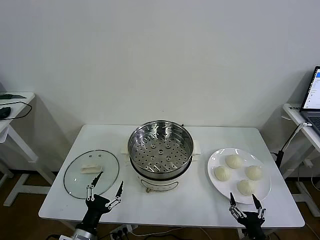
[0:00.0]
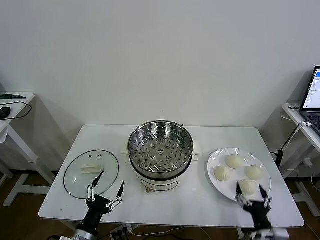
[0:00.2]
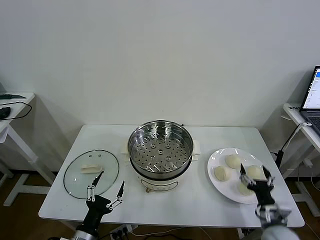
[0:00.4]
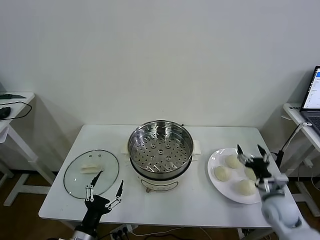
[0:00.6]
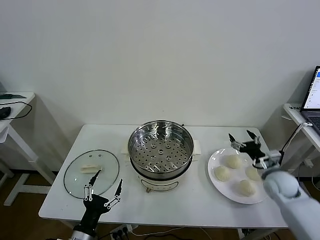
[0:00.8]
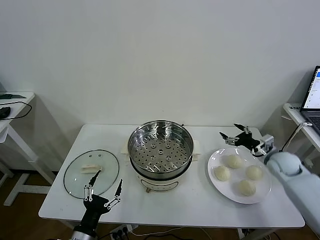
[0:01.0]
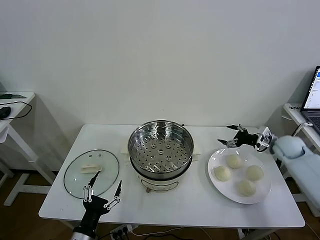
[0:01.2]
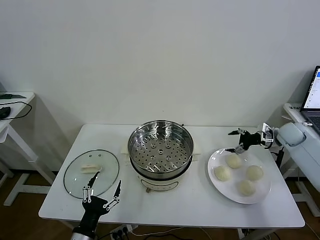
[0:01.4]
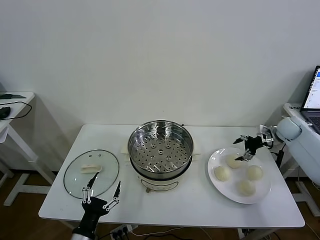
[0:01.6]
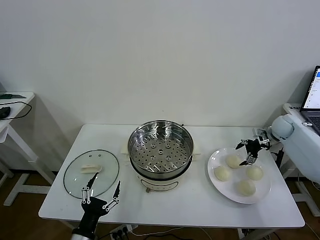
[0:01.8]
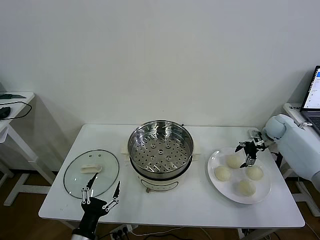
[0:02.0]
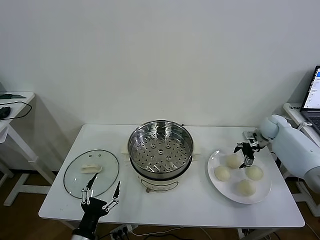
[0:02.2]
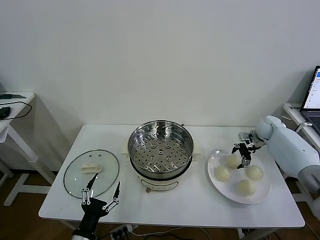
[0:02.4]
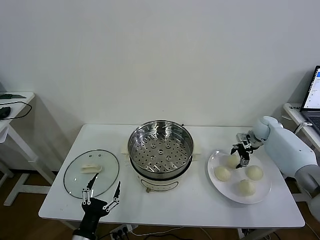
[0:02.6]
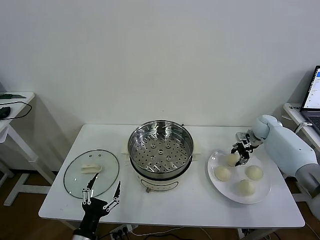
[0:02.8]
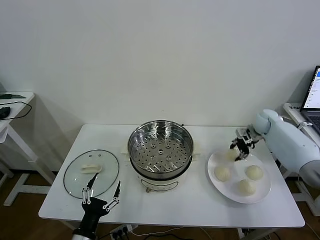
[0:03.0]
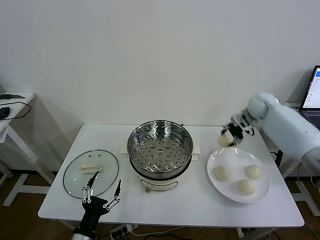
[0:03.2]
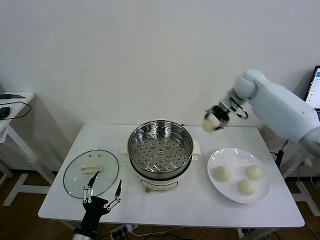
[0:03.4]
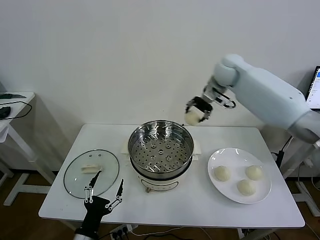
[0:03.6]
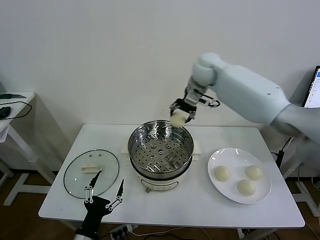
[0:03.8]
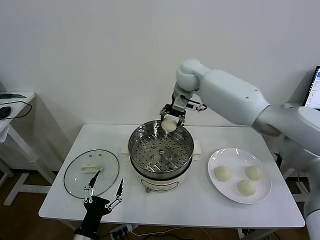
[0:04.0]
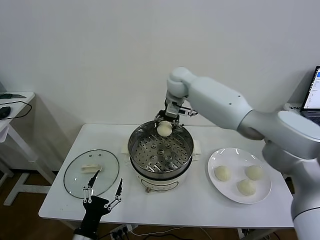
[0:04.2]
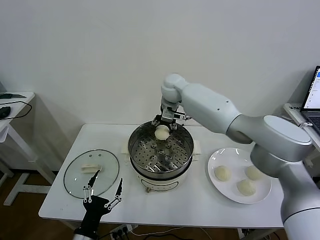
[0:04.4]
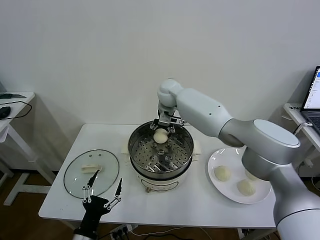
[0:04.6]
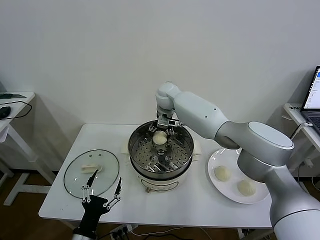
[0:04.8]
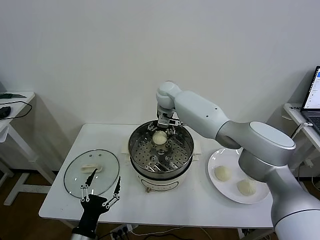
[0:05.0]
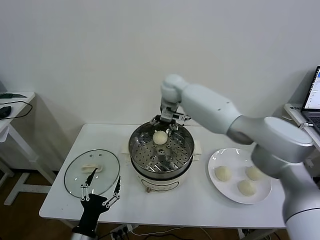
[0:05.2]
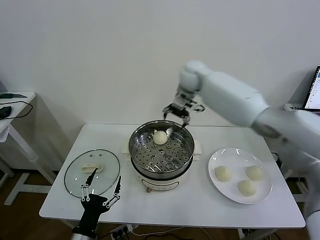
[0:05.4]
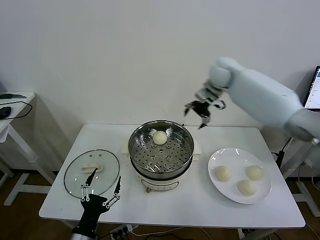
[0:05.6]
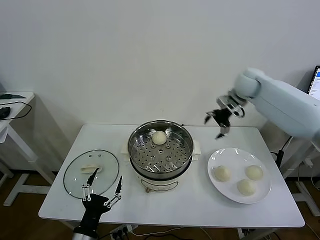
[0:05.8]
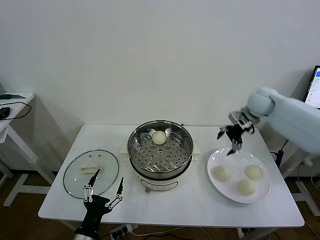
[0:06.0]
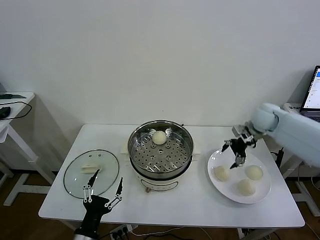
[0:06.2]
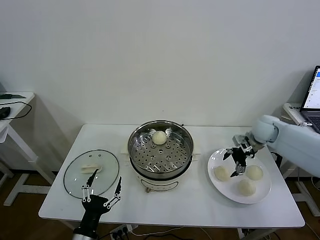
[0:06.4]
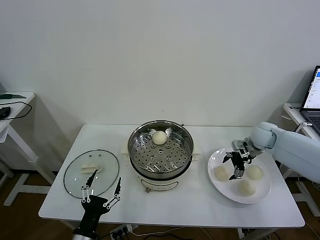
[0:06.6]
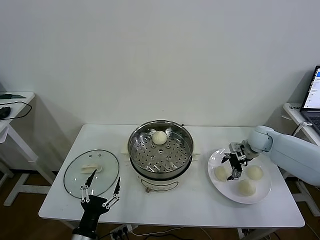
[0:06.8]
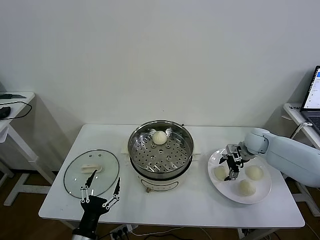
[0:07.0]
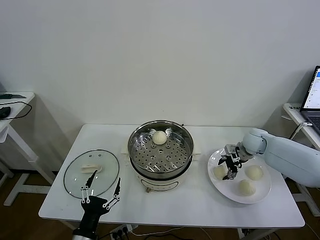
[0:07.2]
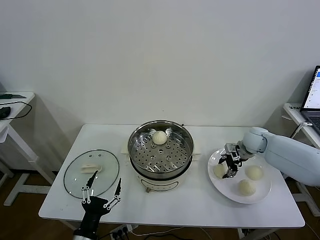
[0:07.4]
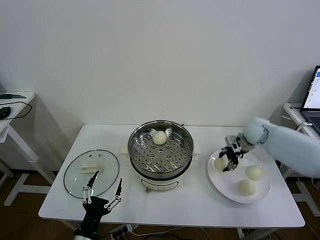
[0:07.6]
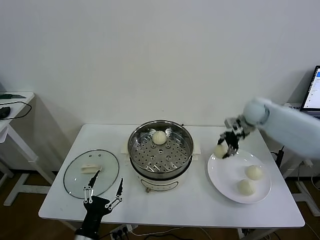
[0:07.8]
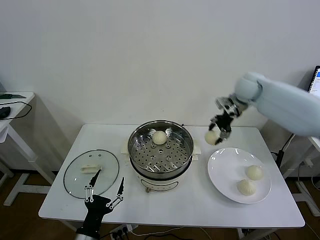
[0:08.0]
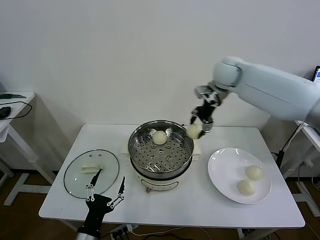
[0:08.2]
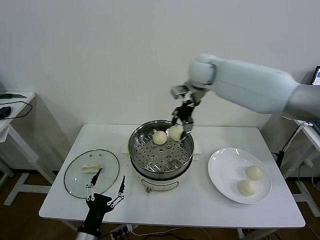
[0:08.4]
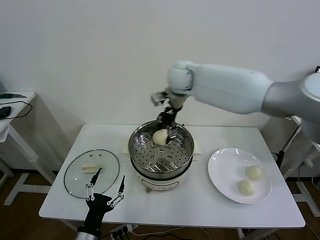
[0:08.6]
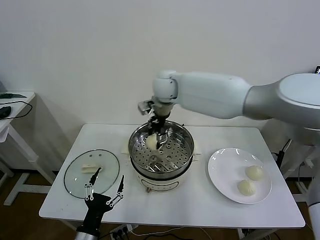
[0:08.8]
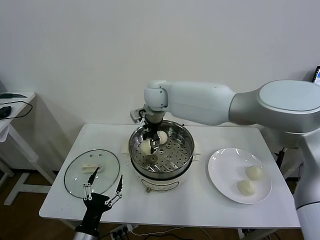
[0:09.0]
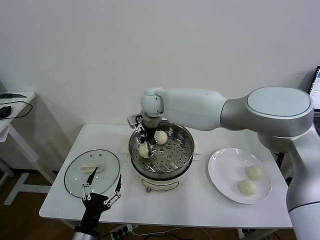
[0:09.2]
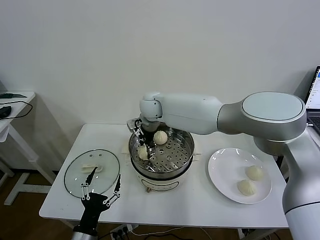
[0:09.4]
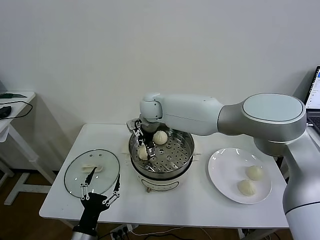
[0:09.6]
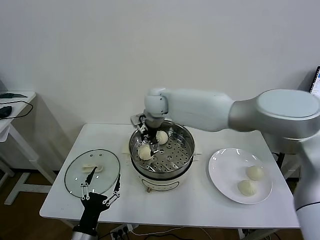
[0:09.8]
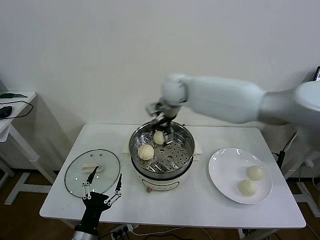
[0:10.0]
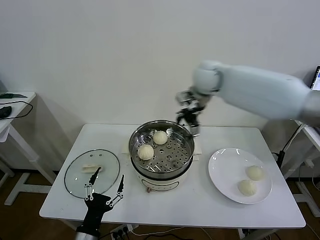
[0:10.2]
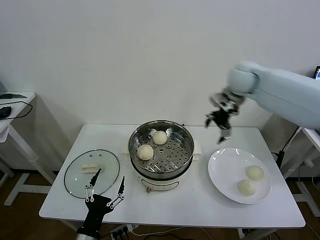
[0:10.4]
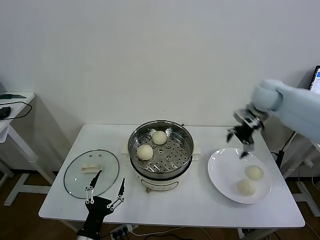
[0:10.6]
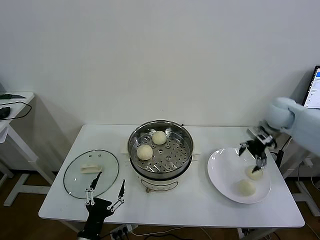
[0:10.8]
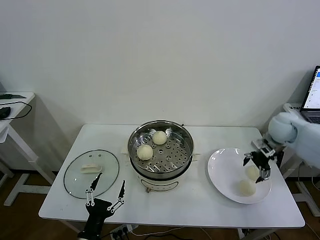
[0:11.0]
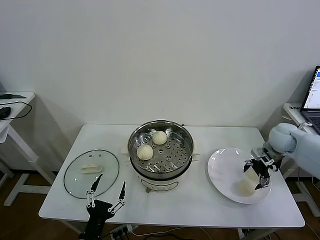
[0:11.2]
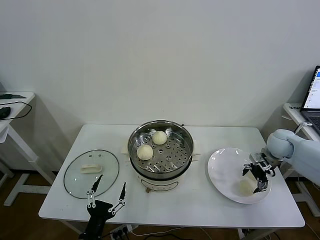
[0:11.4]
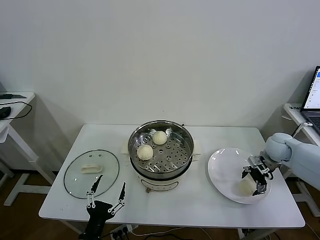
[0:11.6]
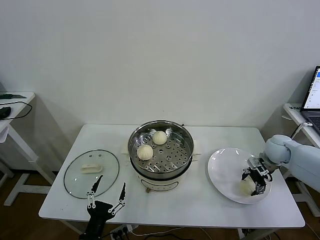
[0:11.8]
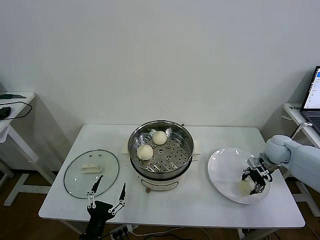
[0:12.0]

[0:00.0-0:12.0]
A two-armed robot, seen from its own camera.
Task of the whole recording: take steamed baozi put them in steamer then cover it.
Step, 0:00.0 to 0:02.6: Grasp the baozi in the plate with right gripper.
Step, 0:02.8 to 0:04.8: Place the baozi on the steamer with right gripper.
Step, 0:05.0 to 0:07.2: Grasp the baozi in the plate with right gripper.
Step, 0:07.6 to 0:09.6: Place the baozi on the steamer with right gripper.
Step, 0:09.8 to 0:11.8: Grasp the baozi in the plate with right gripper.
0:01.6 to 0:03.0: The right gripper travels to the left and forward by about 10 cm, and closes up.
0:03.0 to 0:04.4: The right gripper travels to the left by roughly 35 cm.
0:04.4 to 0:06.0: The right gripper is displaced to the right by approximately 30 cm, and opens.
0:06.0 to 0:07.6: The right gripper travels downward by approximately 10 cm, and closes.
0:07.6 to 0:09.0: The right gripper is displaced to the left by roughly 35 cm.
0:09.0 to 0:10.4: The right gripper goes approximately 30 cm to the right, and opens its fingers.
0:10.4 to 0:12.0: The right gripper travels downward, to the right and backward by about 30 cm, and closes its fingers.

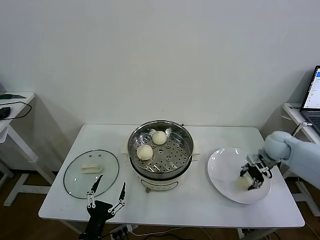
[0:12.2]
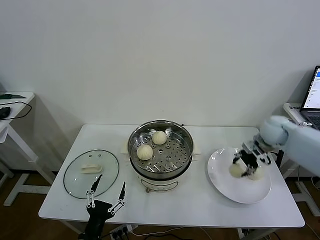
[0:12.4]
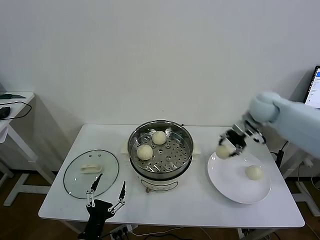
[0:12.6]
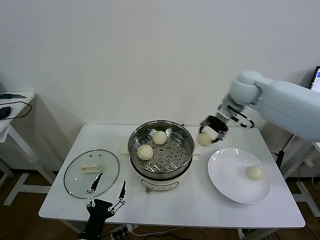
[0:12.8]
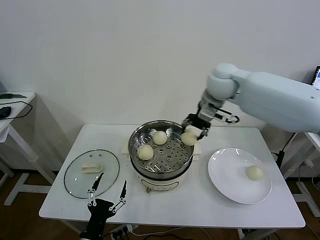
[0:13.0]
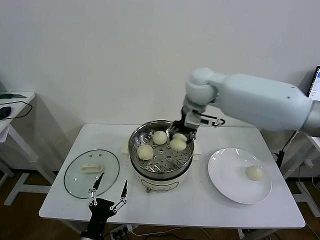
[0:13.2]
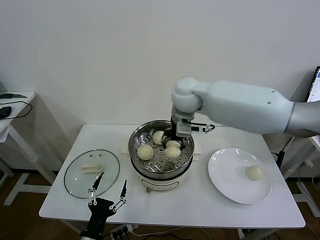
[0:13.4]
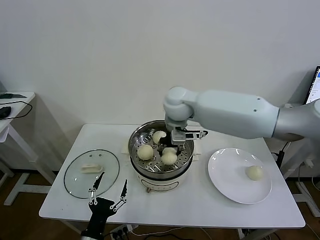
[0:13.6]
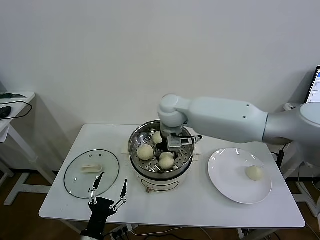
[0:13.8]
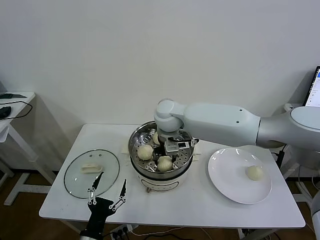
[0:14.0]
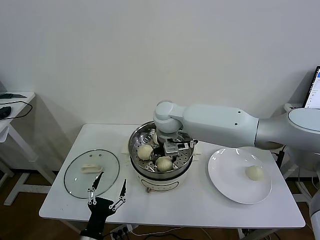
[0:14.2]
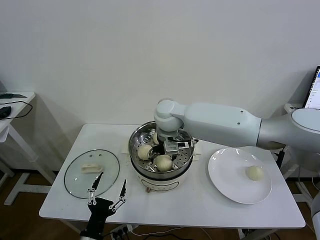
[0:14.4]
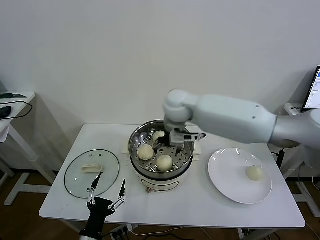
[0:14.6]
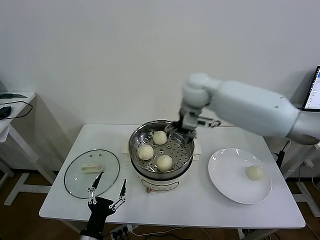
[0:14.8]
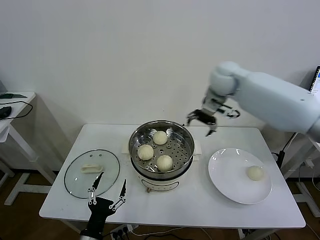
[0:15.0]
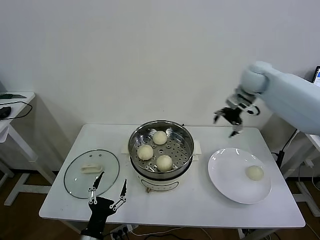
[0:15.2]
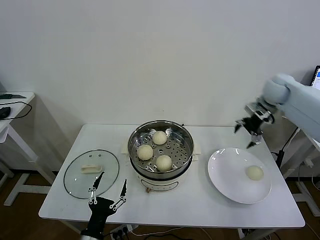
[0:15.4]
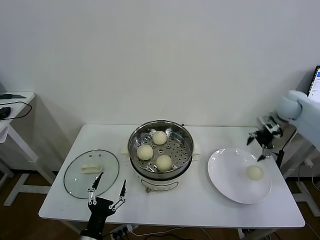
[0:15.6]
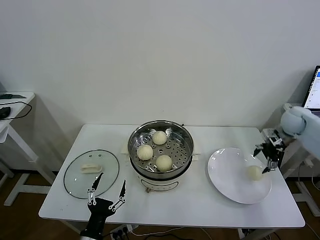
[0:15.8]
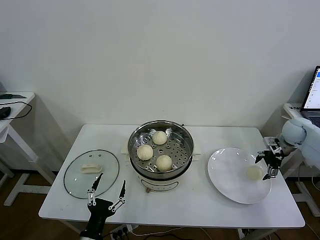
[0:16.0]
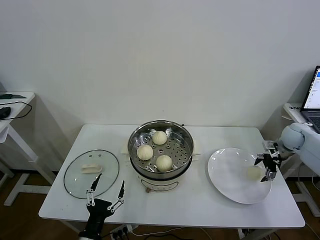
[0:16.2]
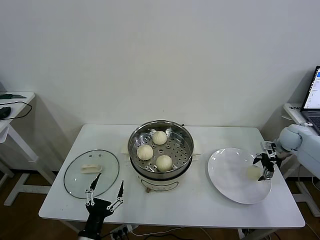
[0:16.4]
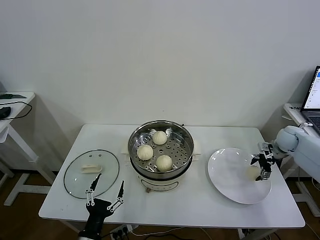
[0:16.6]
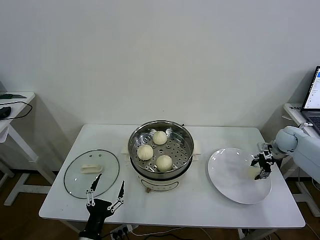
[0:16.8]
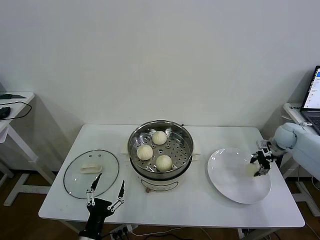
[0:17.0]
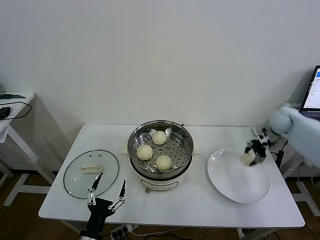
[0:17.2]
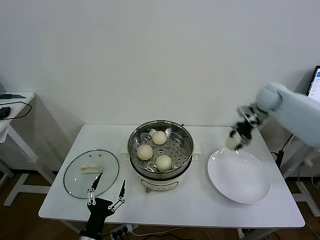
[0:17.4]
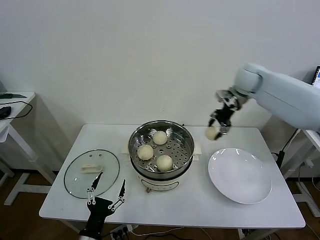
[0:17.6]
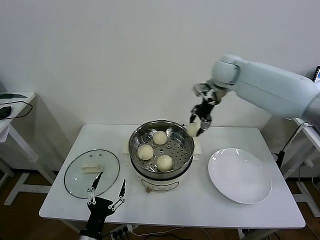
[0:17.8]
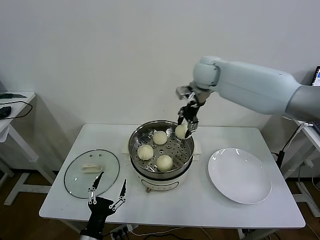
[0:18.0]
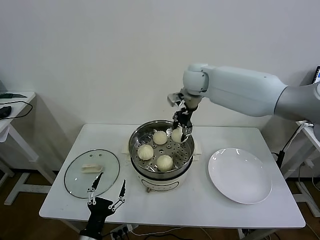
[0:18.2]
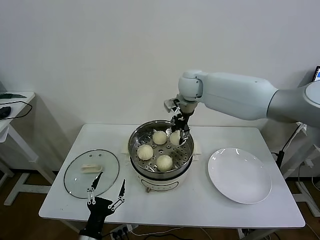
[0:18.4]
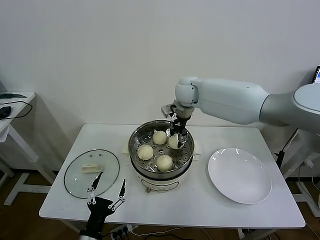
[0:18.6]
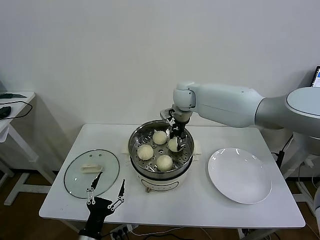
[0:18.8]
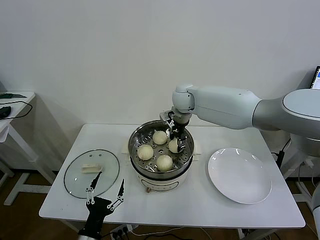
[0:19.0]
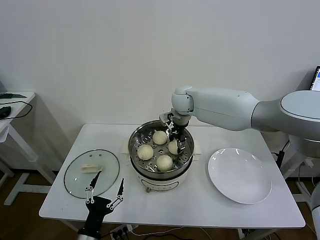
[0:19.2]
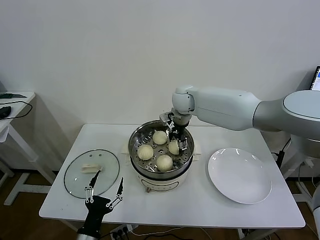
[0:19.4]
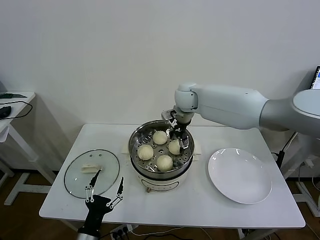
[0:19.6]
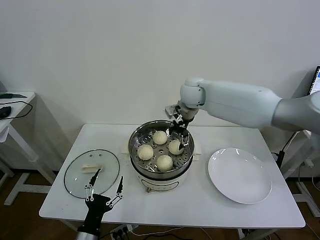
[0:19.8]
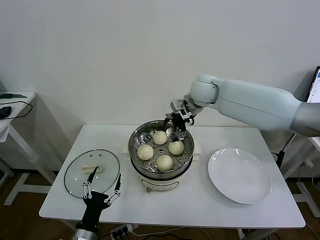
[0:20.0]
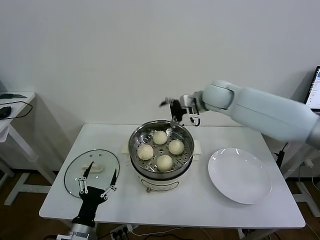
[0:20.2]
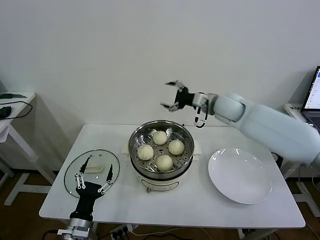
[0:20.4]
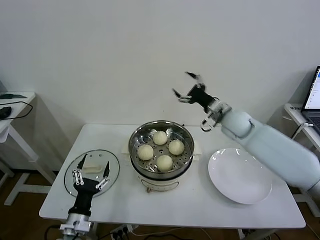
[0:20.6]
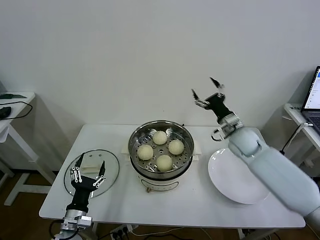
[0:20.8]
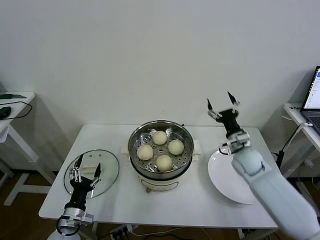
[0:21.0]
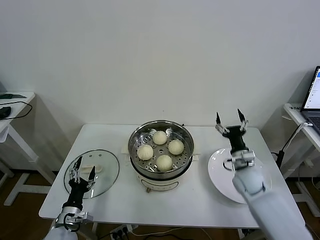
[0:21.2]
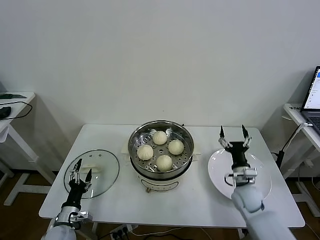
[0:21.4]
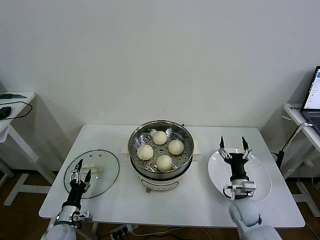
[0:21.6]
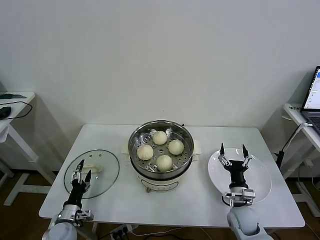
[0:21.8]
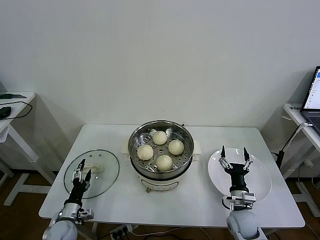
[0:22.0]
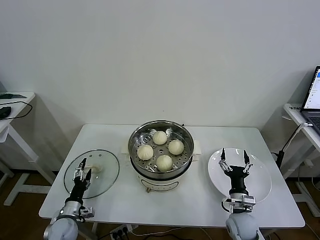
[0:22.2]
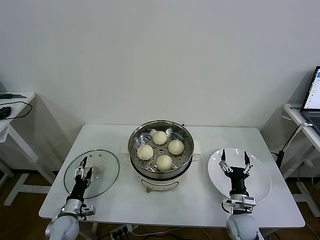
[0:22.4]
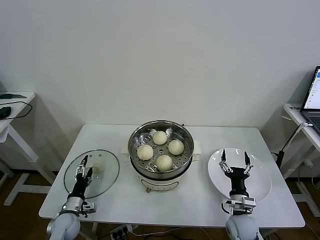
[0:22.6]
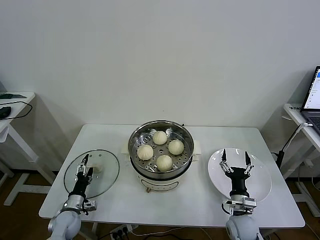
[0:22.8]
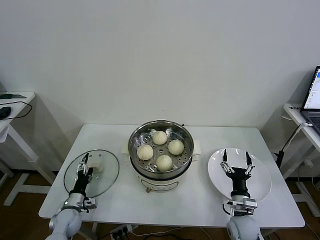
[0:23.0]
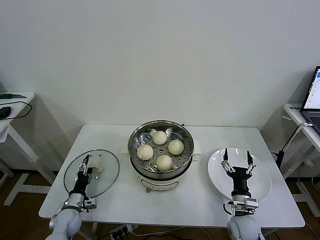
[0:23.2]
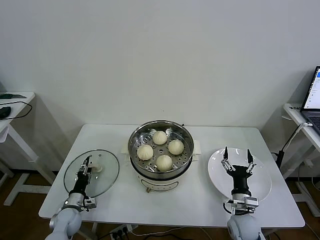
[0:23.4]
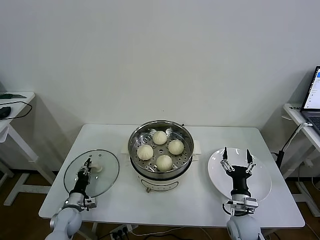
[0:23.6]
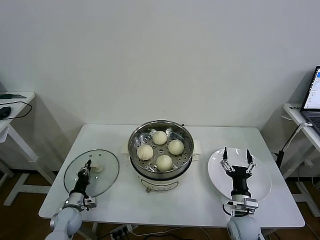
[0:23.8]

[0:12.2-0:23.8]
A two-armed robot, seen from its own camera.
Task of the whole recording: take steamed baozi put them in steamer then cover it.
Step, 0:12.2 to 0:14.2: Place the baozi on the steamer with right gripper.
Step, 0:14.4 to 0:16.8: Grasp the baozi in the plate with right gripper.
Step, 0:17.2 to 0:19.2: Place the baozi on the steamer with right gripper.
0:12.2 to 0:13.6: The right gripper travels to the left and upward by some 40 cm.
0:13.6 to 0:15.0: The right gripper shifts approximately 15 cm to the right and forward, and opens its fingers.
0:15.0 to 0:16.6: The right gripper goes some 40 cm to the right and downward.
0:16.6 to 0:18.0: The right gripper is displaced to the left and upward by about 40 cm, and closes up.
0:18.0 to 0:19.4: The right gripper goes approximately 10 cm downward and to the left, and opens its fingers.
0:19.4 to 0:21.0: The left gripper is displaced forward and to the left by about 10 cm; the right gripper shifts some 30 cm to the right, downward and backward.
0:21.0 to 0:22.4: The left gripper shifts some 10 cm downward, forward and to the left; the right gripper goes about 25 cm backward and downward.
0:22.4 to 0:23.8: The left gripper closes up.
